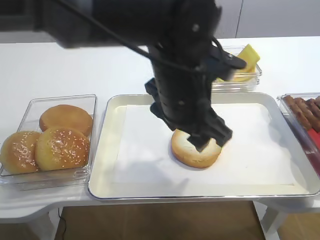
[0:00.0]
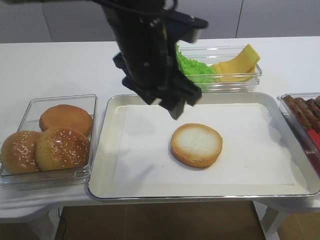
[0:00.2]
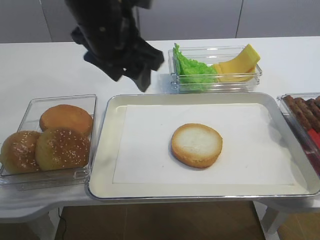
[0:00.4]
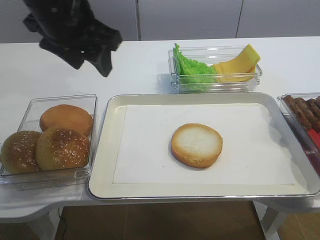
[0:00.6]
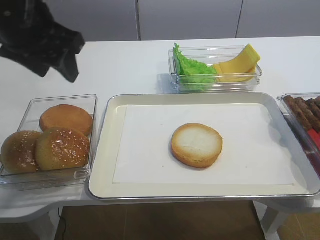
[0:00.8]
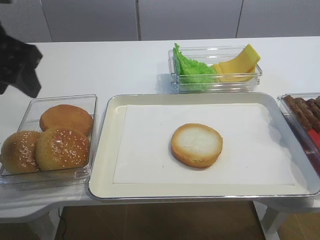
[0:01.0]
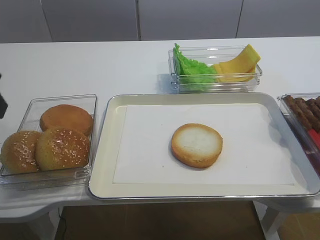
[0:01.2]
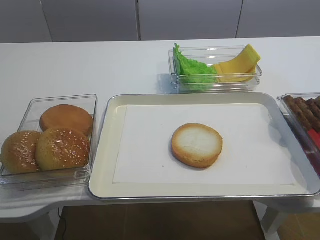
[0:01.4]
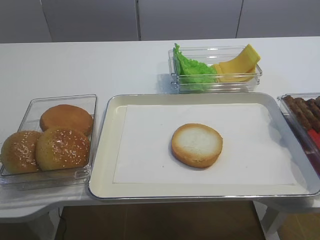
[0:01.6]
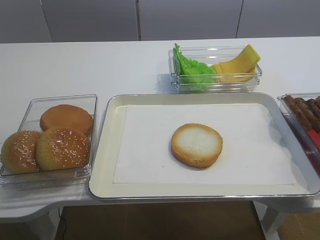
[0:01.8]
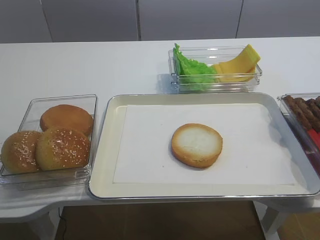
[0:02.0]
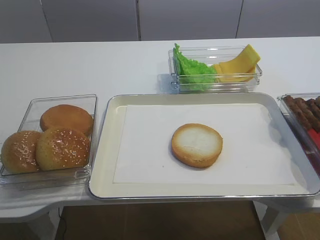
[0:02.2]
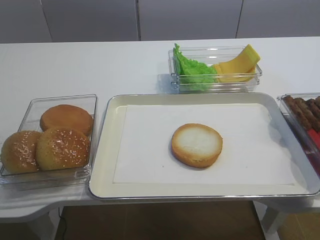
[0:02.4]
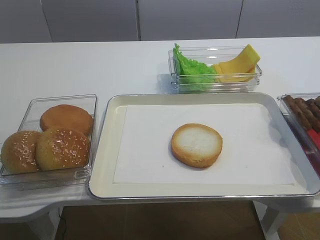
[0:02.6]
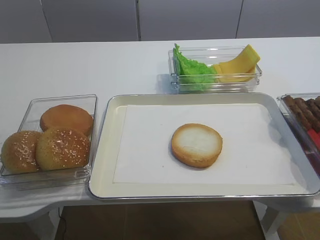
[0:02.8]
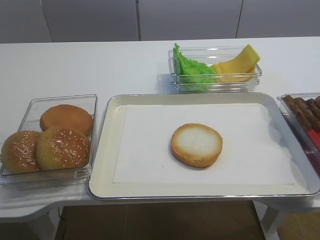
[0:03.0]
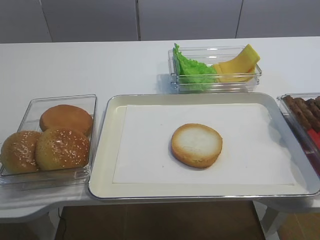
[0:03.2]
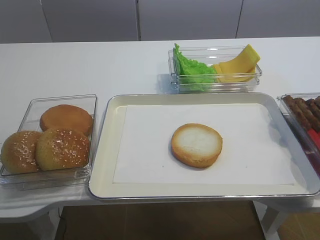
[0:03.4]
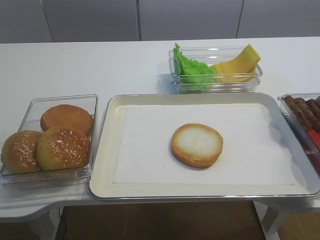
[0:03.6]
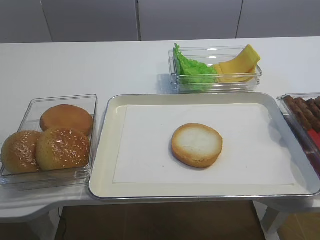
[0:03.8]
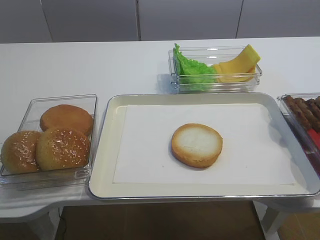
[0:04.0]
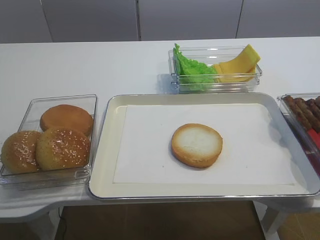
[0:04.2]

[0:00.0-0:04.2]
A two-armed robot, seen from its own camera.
0:00.0 to 0:01.4: The left gripper goes about 30 cm to the left.

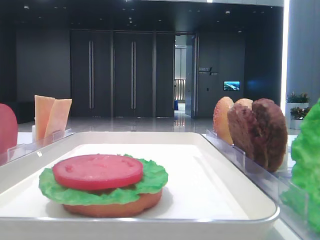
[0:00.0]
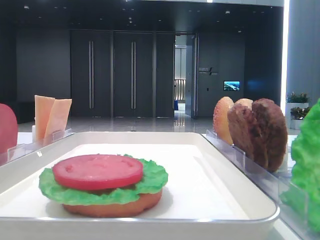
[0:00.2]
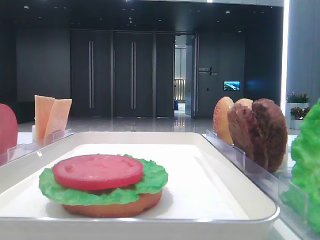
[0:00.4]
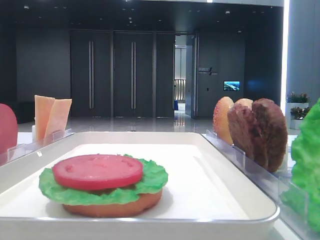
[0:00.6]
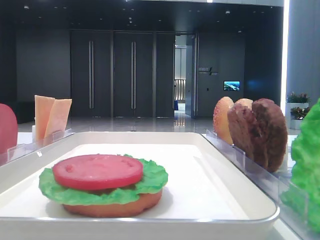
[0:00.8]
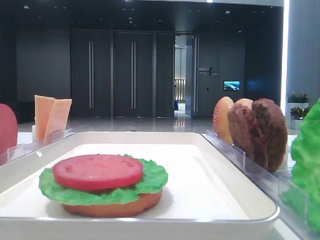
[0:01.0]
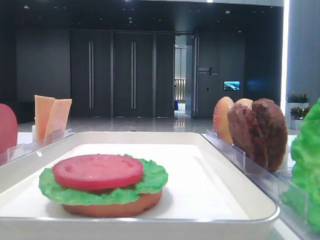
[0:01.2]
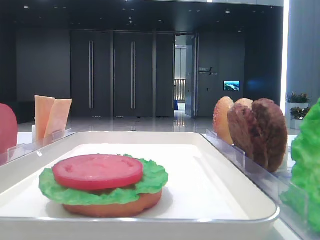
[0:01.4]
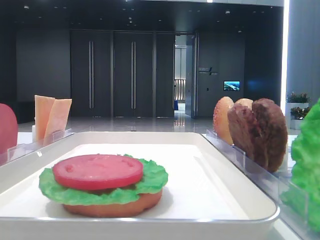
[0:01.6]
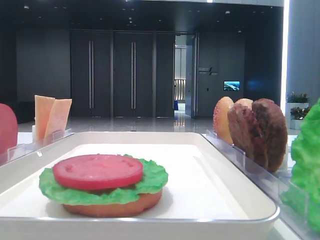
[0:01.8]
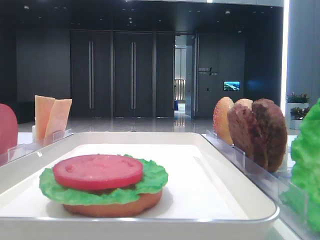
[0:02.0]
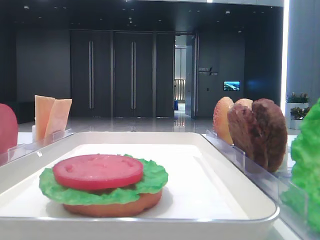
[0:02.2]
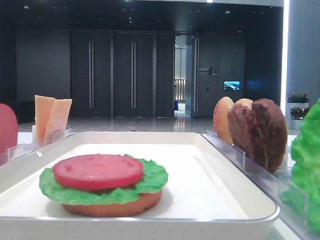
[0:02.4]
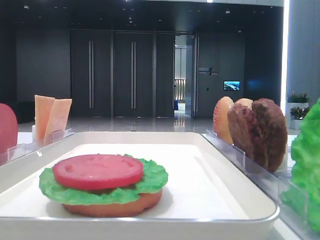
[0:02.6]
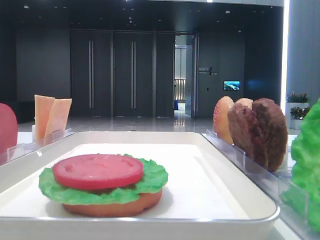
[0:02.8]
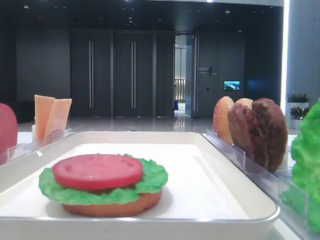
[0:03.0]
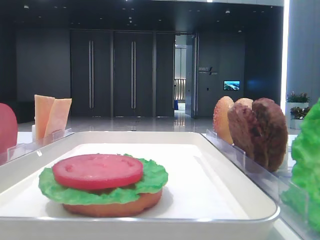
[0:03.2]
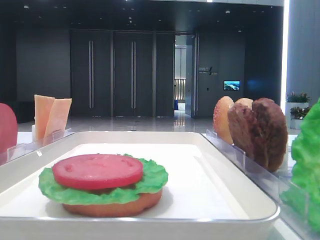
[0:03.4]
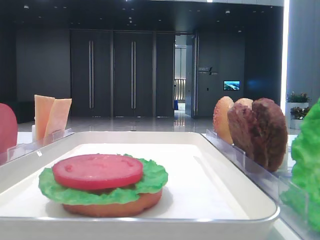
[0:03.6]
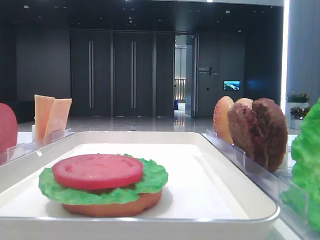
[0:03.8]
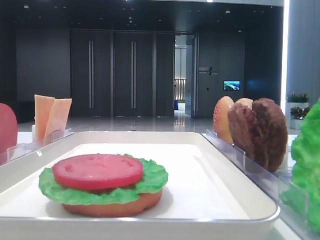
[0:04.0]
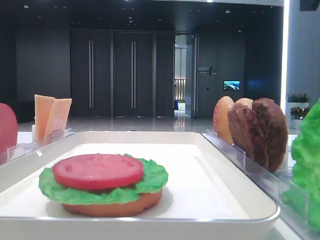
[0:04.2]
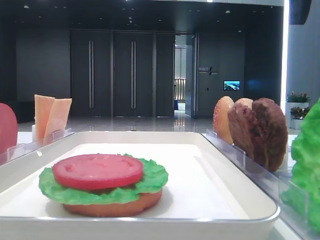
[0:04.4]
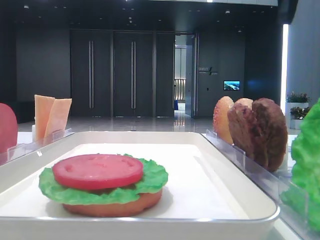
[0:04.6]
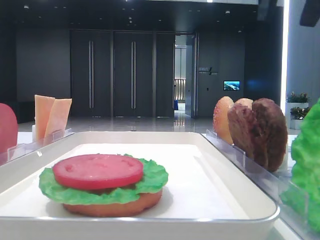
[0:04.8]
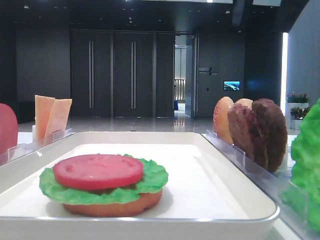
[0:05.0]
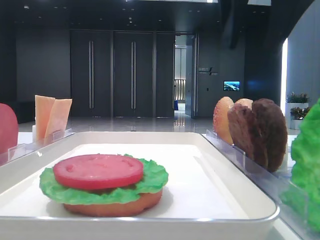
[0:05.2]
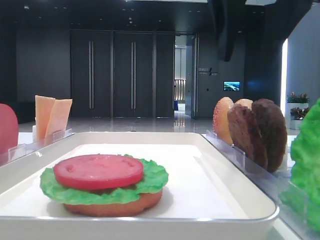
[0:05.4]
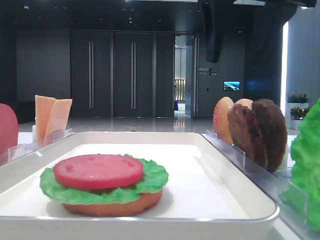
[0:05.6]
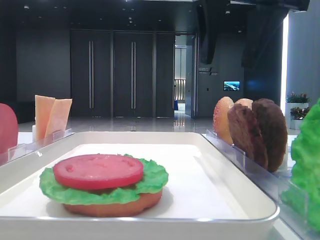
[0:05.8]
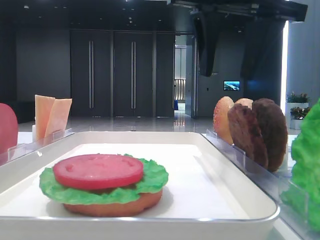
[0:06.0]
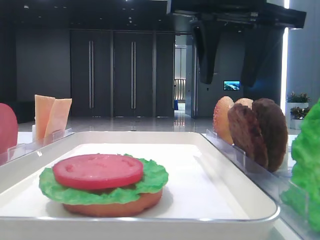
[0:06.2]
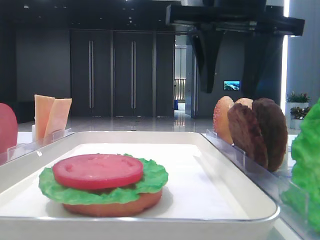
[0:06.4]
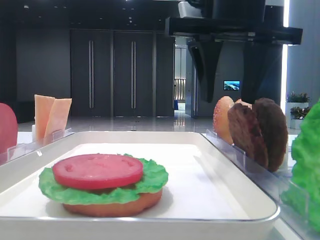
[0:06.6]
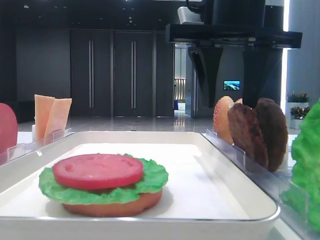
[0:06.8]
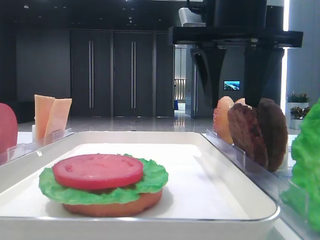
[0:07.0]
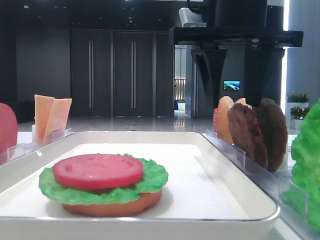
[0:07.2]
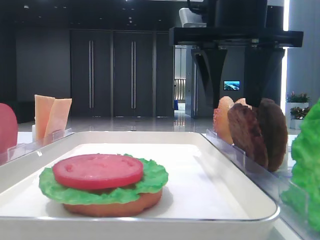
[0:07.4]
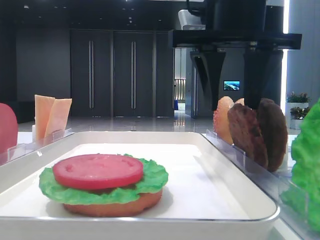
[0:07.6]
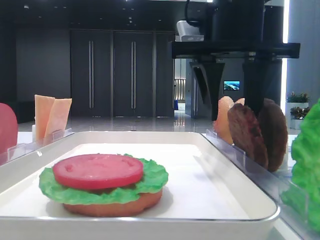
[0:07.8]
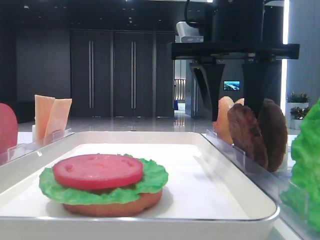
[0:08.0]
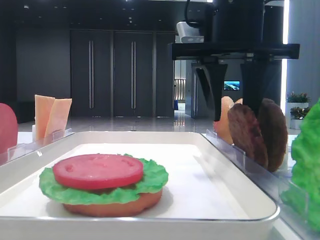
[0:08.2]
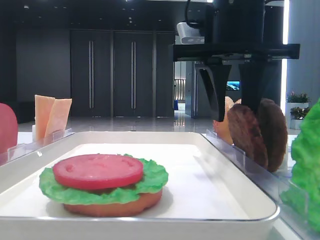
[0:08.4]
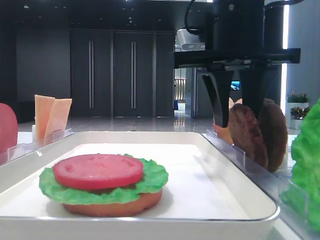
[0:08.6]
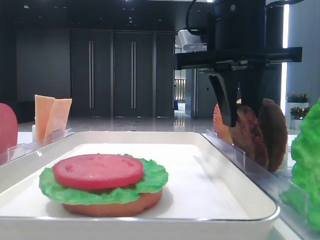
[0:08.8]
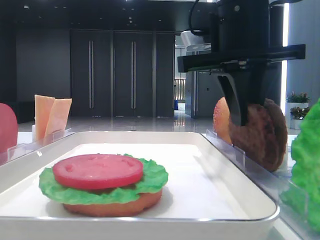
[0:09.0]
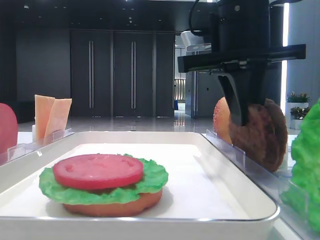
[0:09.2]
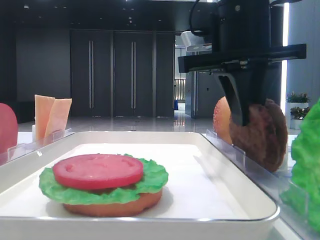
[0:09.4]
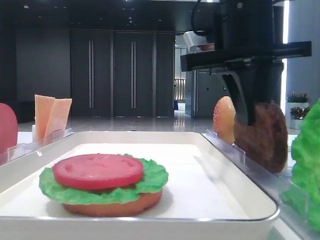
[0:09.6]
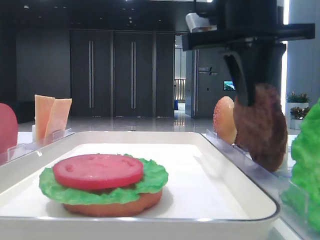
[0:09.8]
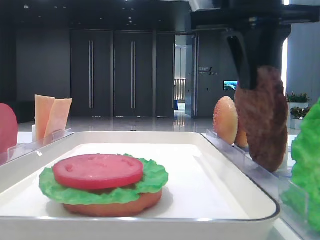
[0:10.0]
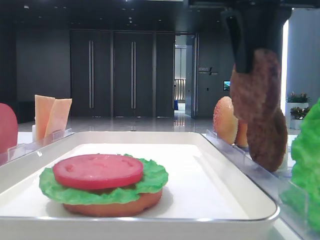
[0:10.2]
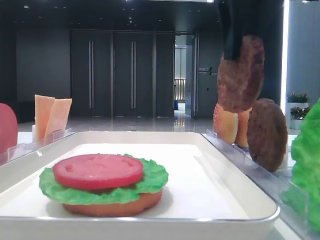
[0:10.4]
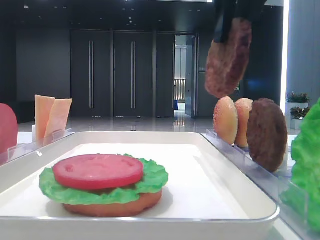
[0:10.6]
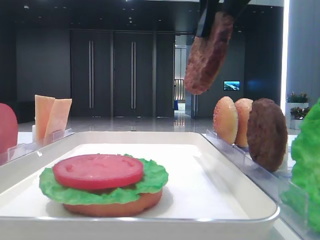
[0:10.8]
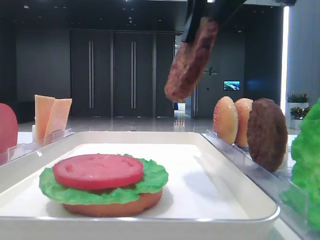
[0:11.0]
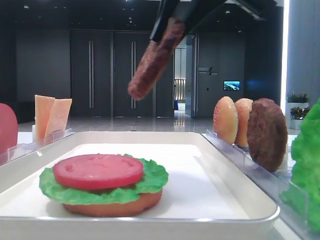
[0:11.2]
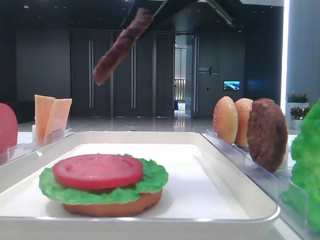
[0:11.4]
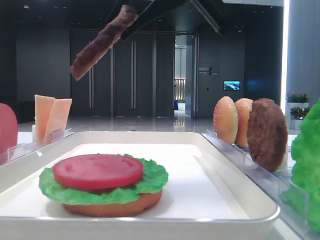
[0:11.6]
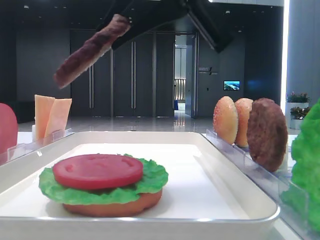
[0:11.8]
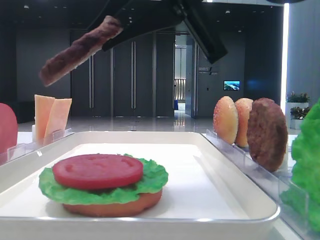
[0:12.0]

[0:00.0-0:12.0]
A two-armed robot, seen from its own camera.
Step, 0:00.0 to 0:08.8: Grab the patty with the right hand.
0:04.4 to 0:06.0: The right gripper is displaced to the left and downward by some 10 cm.
0:06.0 to 0:07.6: There are only small adjustments of the grippers.
0:07.6 to 0:09.0: The right gripper closes up.
0:09.0 to 0:10.4: The right gripper is displaced upward by about 10 cm.
0:10.4 to 0:12.0: The right gripper goes some 5 cm backward.

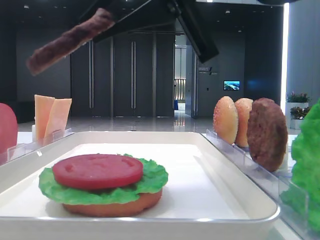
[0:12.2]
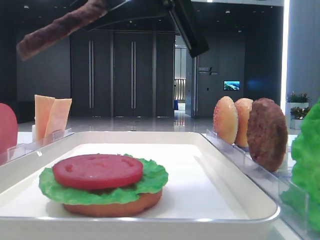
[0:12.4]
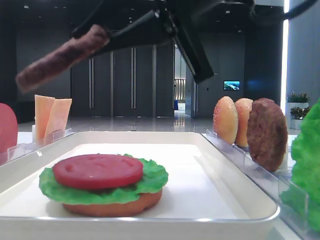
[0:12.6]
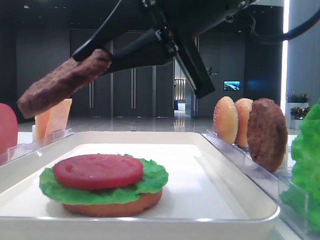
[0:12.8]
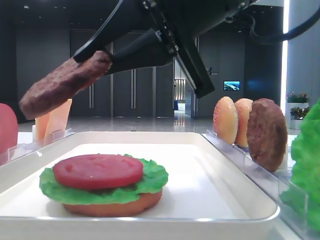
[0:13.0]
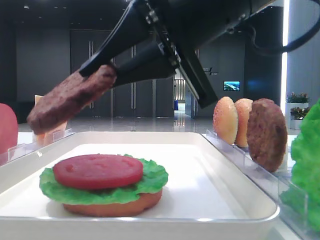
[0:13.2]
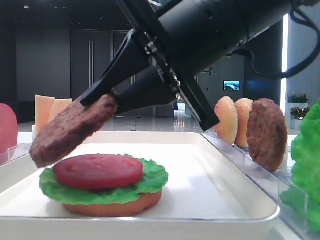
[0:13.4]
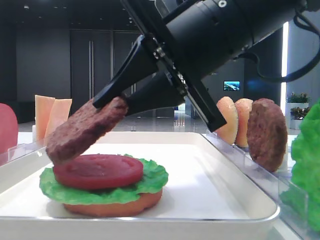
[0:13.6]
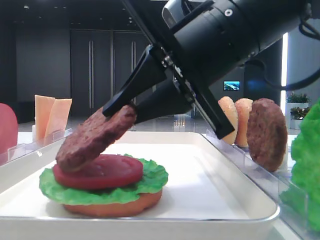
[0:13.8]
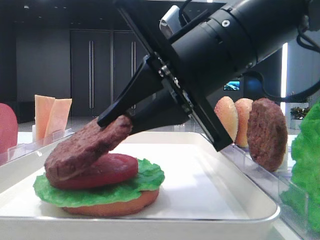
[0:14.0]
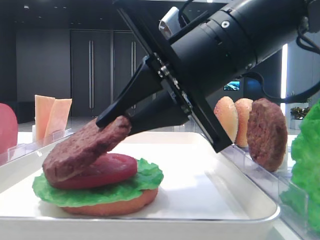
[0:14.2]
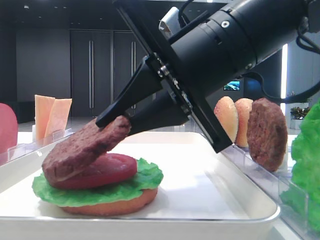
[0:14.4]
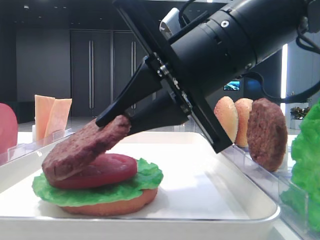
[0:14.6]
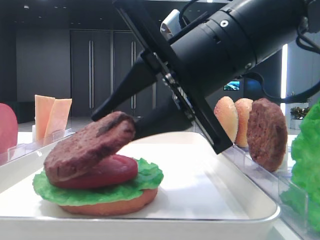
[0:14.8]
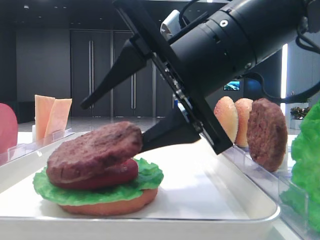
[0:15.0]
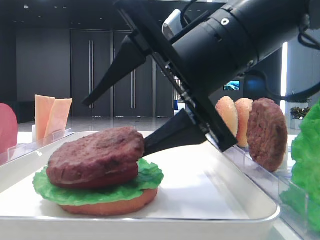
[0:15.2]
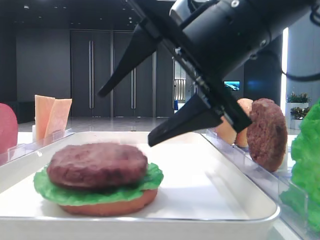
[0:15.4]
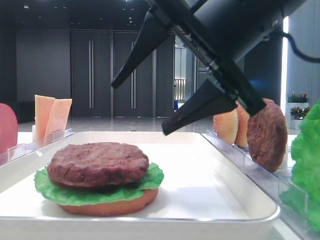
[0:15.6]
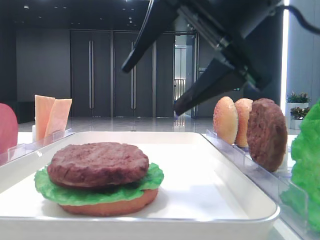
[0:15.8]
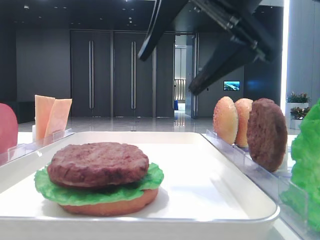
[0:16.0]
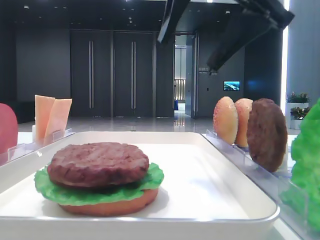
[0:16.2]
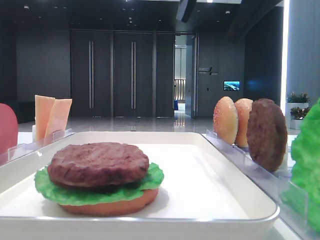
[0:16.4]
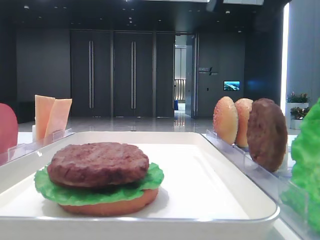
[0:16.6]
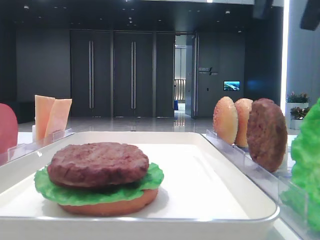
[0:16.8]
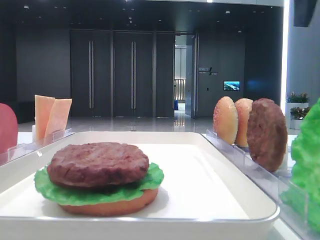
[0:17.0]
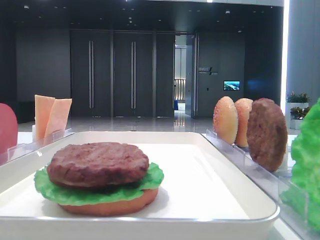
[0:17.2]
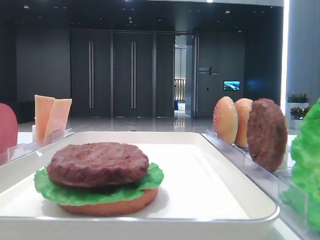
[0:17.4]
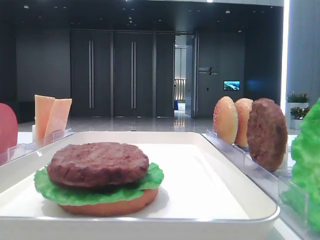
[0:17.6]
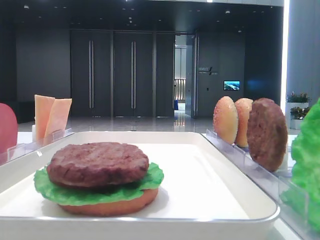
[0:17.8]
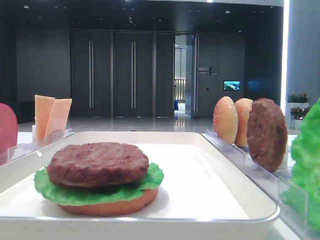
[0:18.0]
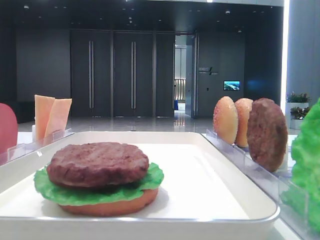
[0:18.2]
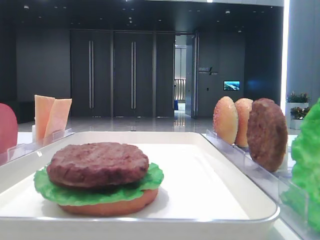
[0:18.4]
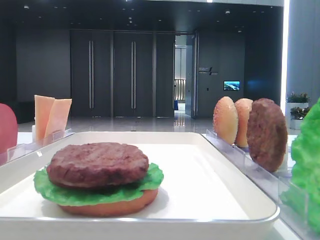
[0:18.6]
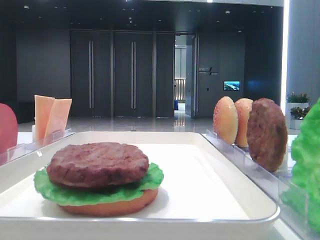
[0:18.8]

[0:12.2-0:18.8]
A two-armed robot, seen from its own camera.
Step, 0:12.2 to 0:15.2: Place the patty on the tomato slice with the right hand.
0:12.2 to 0:13.8: The right gripper moves downward, some 5 cm.
0:13.8 to 0:15.4: The right gripper opens.
0:15.4 to 0:17.2: The right gripper goes some 25 cm to the right and upward.
